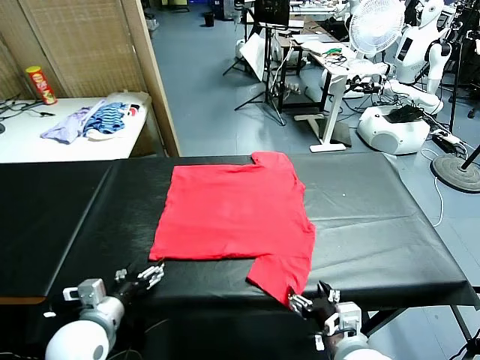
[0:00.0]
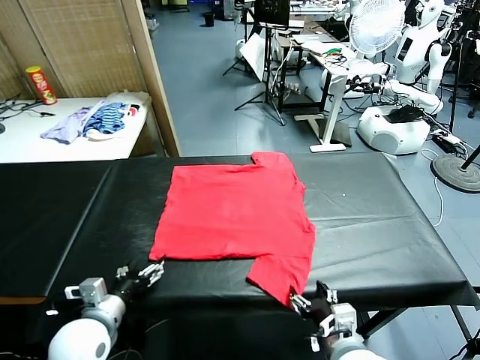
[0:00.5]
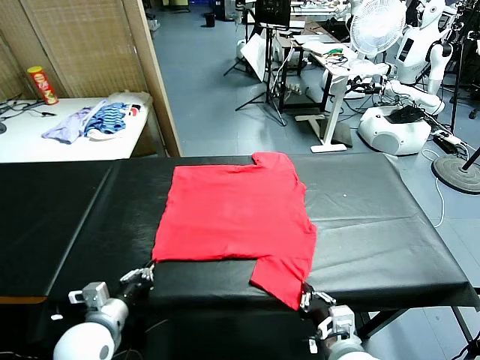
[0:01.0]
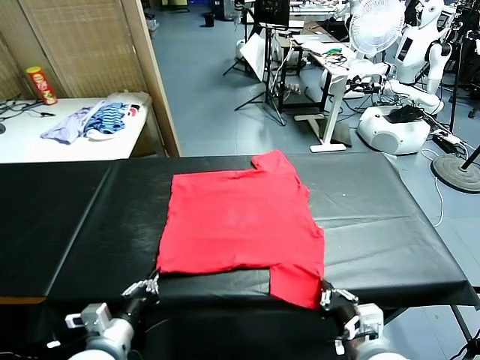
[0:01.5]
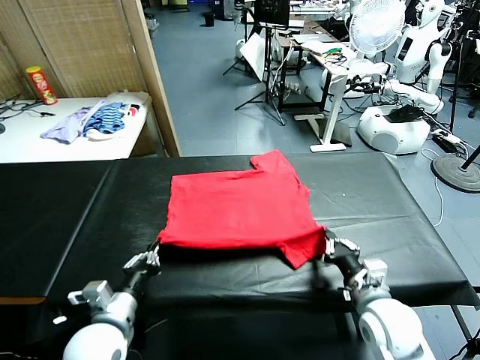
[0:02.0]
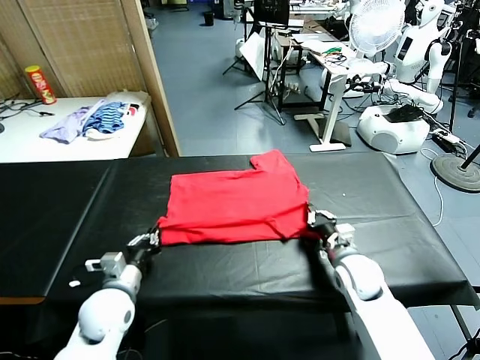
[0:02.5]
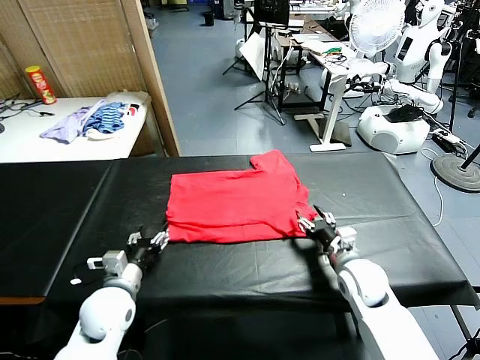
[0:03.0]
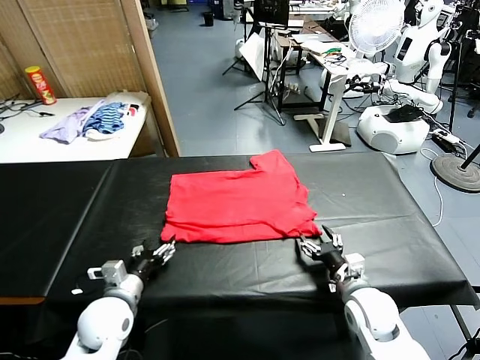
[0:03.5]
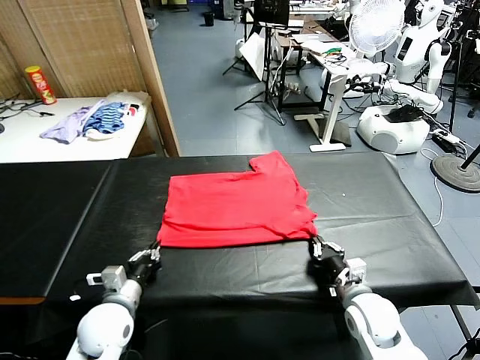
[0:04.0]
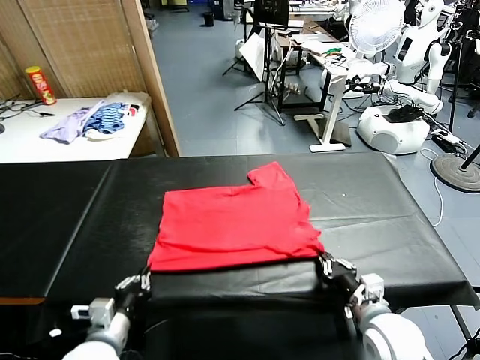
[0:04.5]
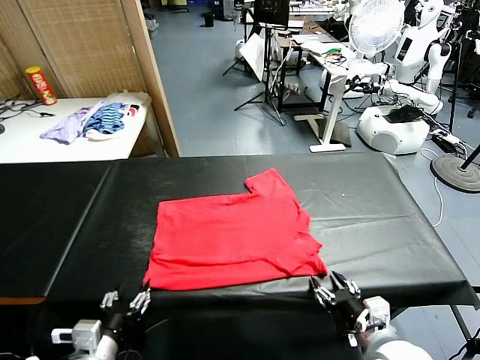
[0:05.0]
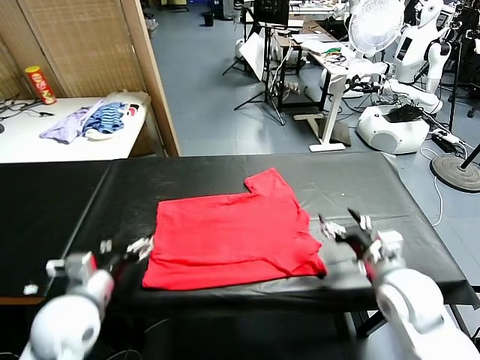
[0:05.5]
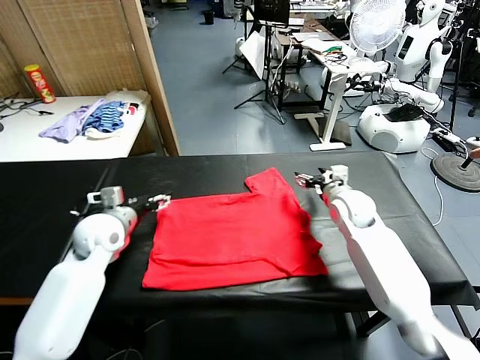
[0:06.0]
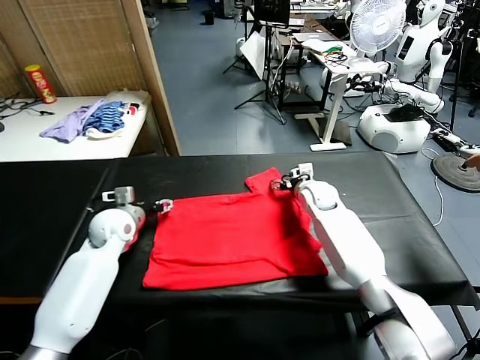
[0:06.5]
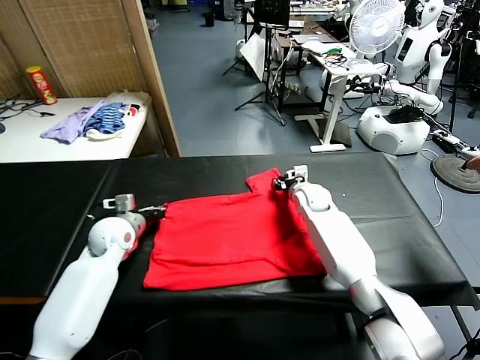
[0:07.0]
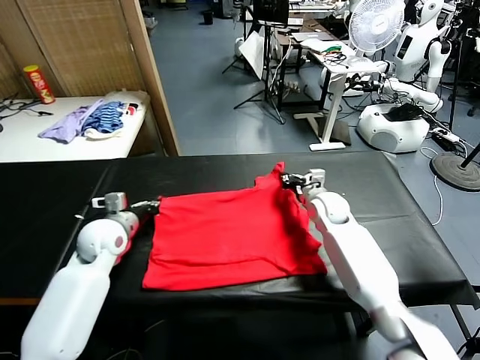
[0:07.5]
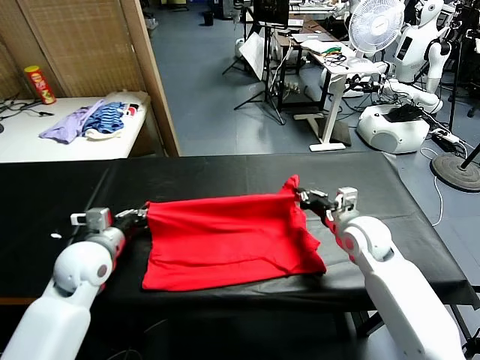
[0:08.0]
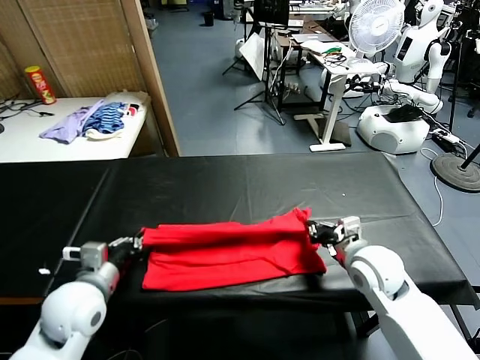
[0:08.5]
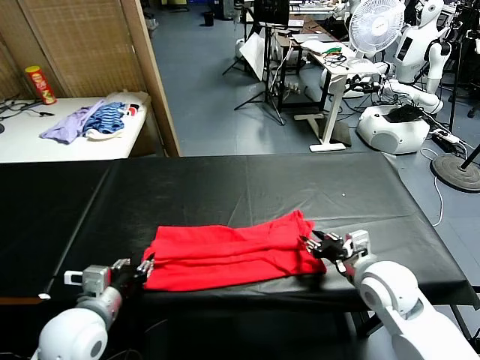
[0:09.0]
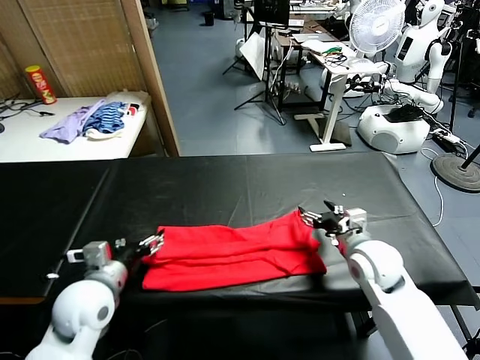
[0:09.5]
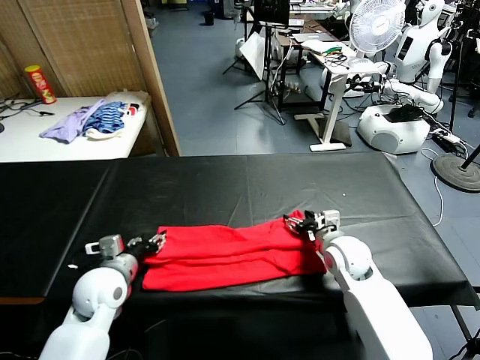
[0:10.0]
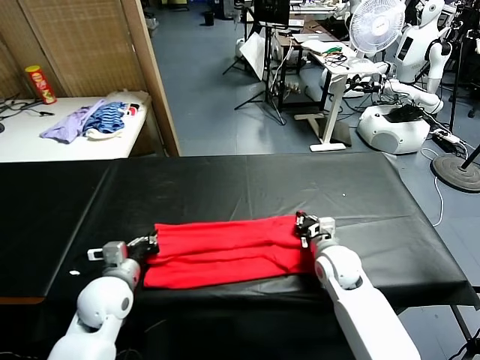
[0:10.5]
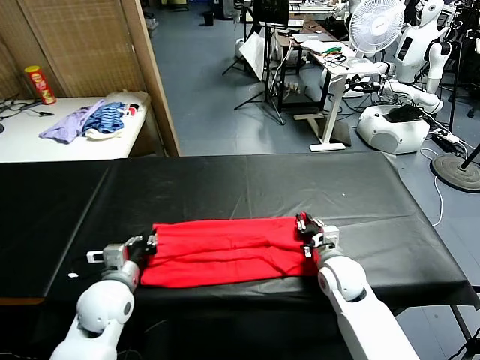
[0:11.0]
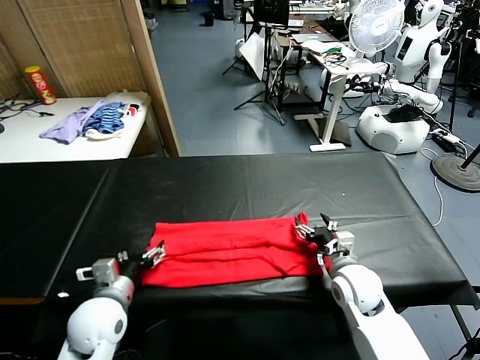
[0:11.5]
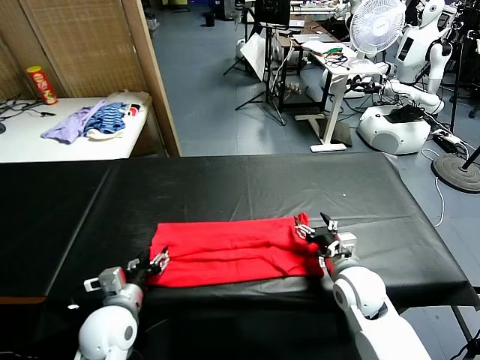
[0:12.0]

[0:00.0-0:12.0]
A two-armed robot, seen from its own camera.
Task of the whole recording: fold and organize the clothes.
Step, 0:00.0 to 0:01.5: use both grippers simultaneously to clamp the lower edge of the clothing fabric.
Step, 0:02.0 to 0:03.0: use both grippers to drag the lower edge of the fabric forward and fold it over the upper edge.
Step, 0:03.5 to 0:05.0: Drag the clothes downward with both gripper.
Step, 0:05.5 to 0:07.0: use both grippers simultaneously to clamp the upper edge of the clothing fabric.
Step, 0:08.0 to 0:09.0: use both grippers to drag the upper edge of the fabric backward and fold it over the lower edge.
0:02.0 to 0:04.0: The right gripper travels backward by approximately 5 cm, and opens, then closes again. Meanwhile the left gripper shifts by approximately 5 cm, and opens and closes again.
0:04.0 to 0:06.0: The right gripper moves forward, about 30 cm, and opens. The left gripper travels forward and upward by approximately 20 cm, and opens its fingers.
0:06.0 to 0:08.0: The right gripper shifts some 15 cm backward, and closes. The left gripper is displaced backward by about 10 cm, and closes.
0:08.0 to 0:10.0: Both grippers move downward, roughly 5 cm. The right gripper moves some 5 cm backward and comes back, and opens up; the left gripper reaches some 10 cm backward, then returns, and opens.
0:10.0 to 0:12.0: Both grippers move backward, roughly 5 cm. The right gripper closes, then reopens. The left gripper closes, then opens again.

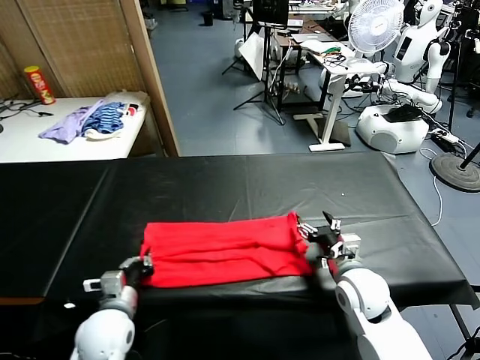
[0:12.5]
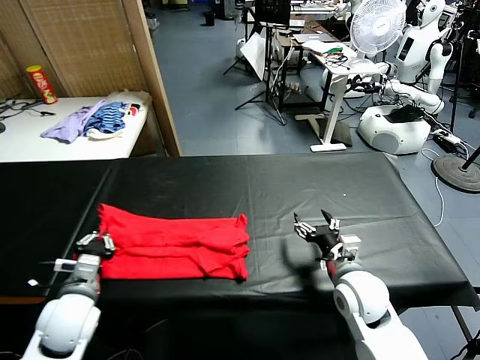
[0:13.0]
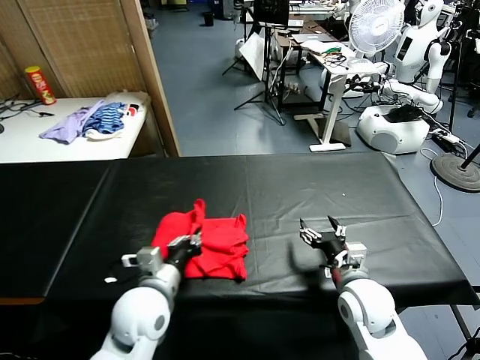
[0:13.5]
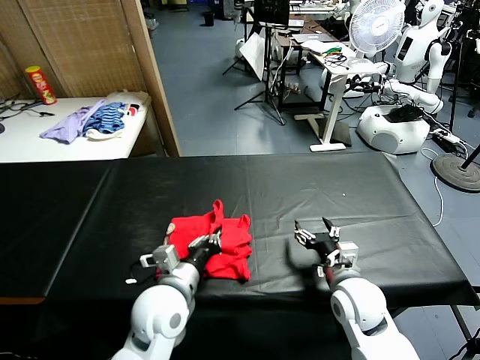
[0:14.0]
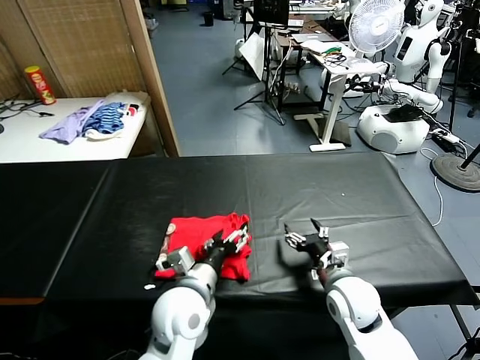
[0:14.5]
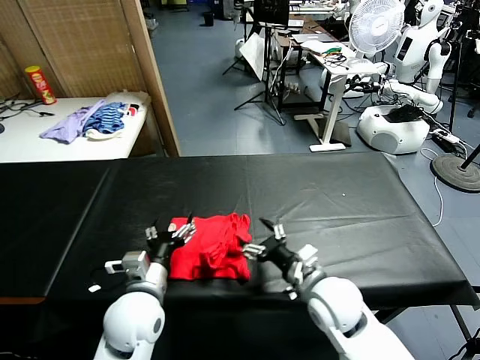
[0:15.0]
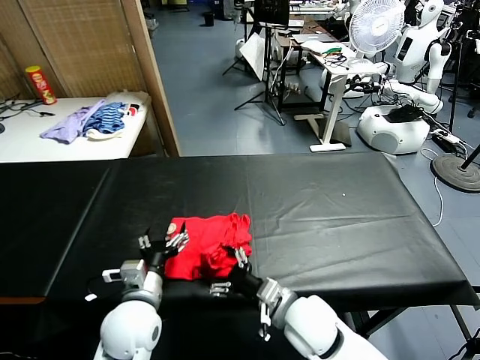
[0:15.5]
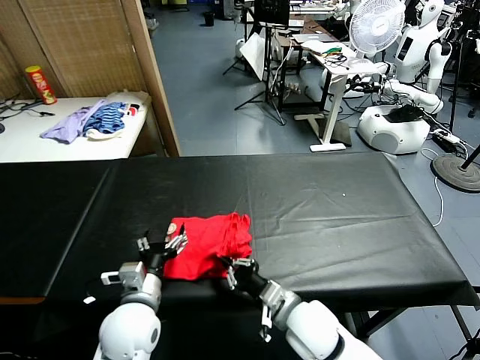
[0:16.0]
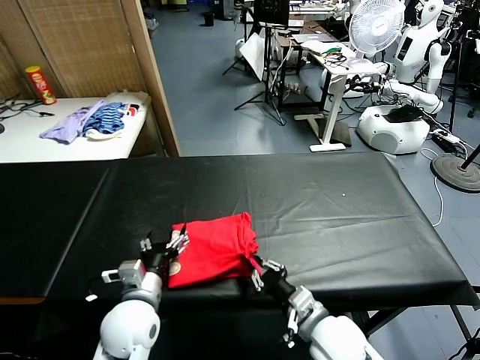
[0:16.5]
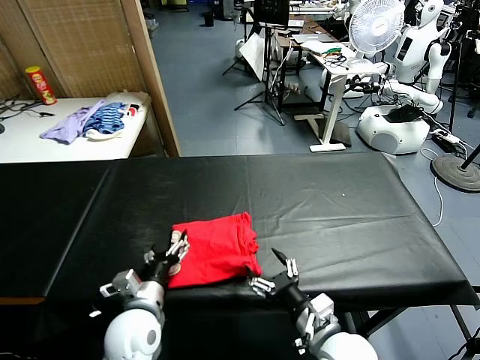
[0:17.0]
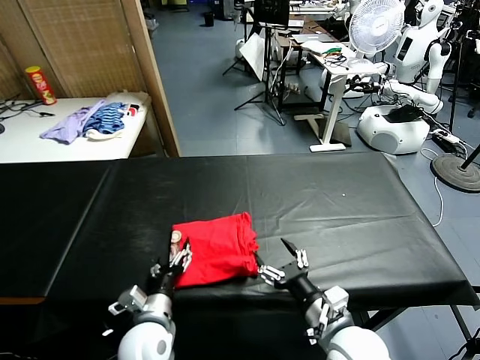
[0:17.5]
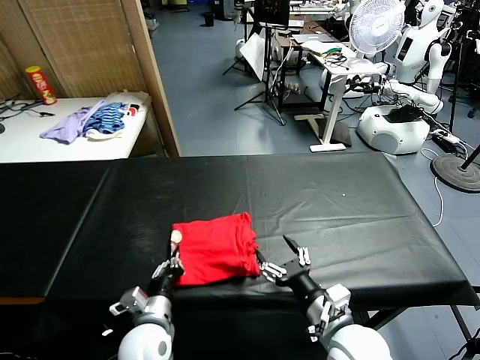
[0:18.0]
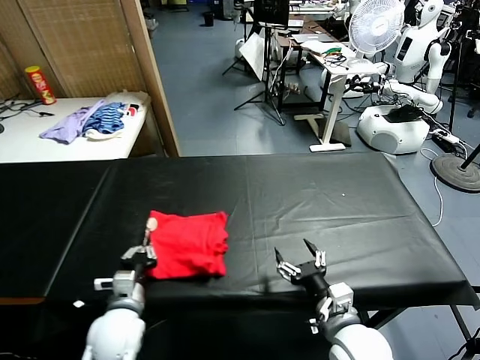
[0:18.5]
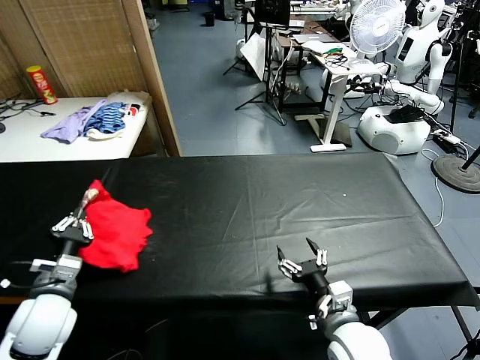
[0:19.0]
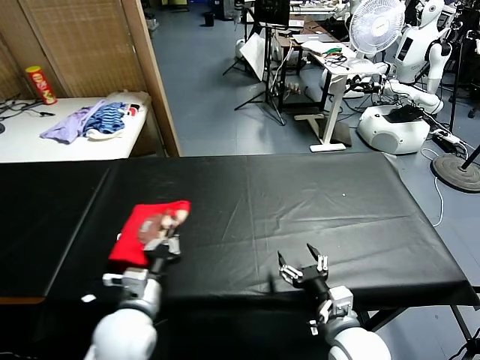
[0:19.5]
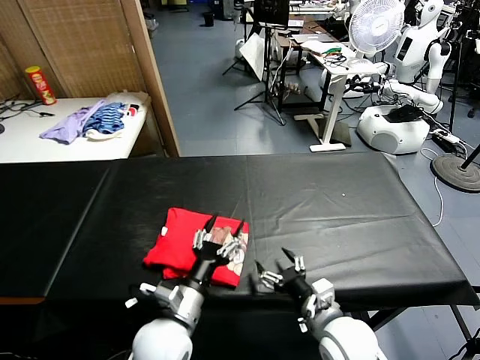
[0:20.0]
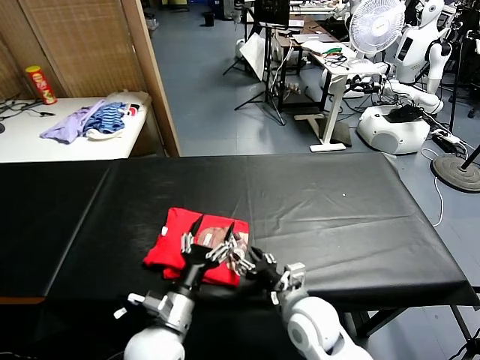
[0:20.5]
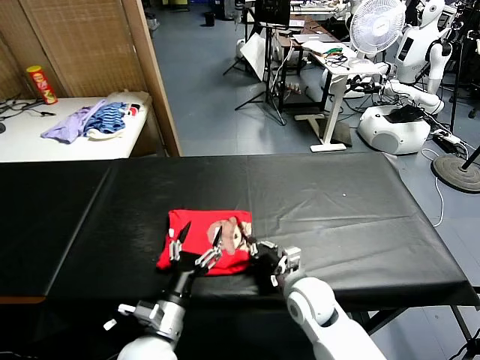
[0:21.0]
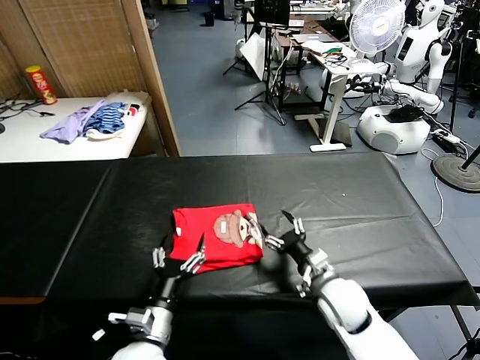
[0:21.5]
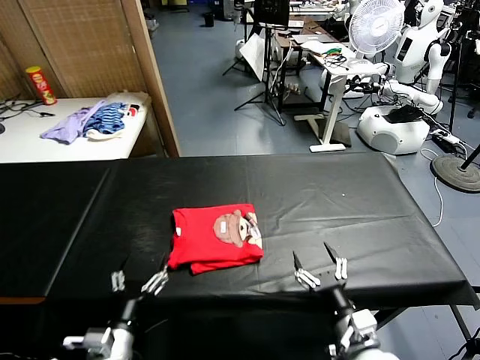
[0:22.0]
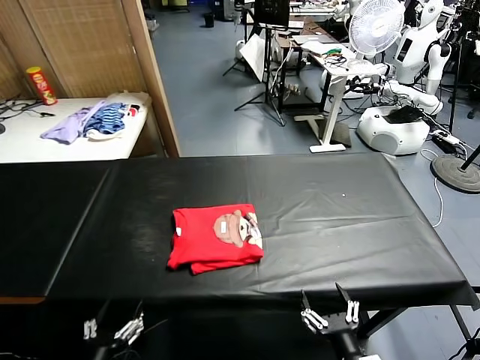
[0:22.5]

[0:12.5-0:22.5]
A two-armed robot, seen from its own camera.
Task of the whole recording: fold and organize the clothes.
Step, 0:13.0 to 0:14.5: use the left gripper to drag the left edge of the fabric to the left and folds it over the right edge.
Step, 0:15.0 to 0:20.0: Flip the folded clothes over with left gripper.
Step, 0:20.5 to 0:21.5: Drag the clothes to the center of the table.
0:12.5 to 0:14.5: The left gripper goes about 15 cm to the right and upward, and opens its fingers.
0:14.5 to 0:16.5: The right gripper shifts approximately 10 cm backward, and closes up, while the left gripper moves to the left, about 10 cm.
0:16.5 to 0:18.5: The right gripper opens up. The left gripper moves approximately 5 cm, and closes up.
0:18.5 to 0:20.5: The right gripper travels to the left and forward by some 10 cm. The left gripper is displaced to the right by some 10 cm, and opens up.
0:20.5 to 0:22.5: The left gripper goes approximately 20 cm backward and to the left. Meanwhile the right gripper goes some 20 cm backward and to the right, and closes, then reopens.

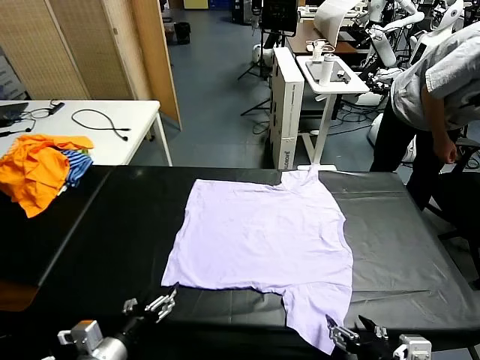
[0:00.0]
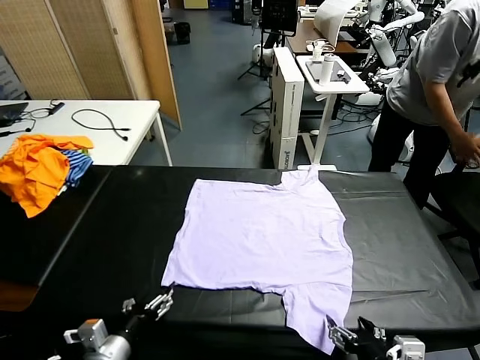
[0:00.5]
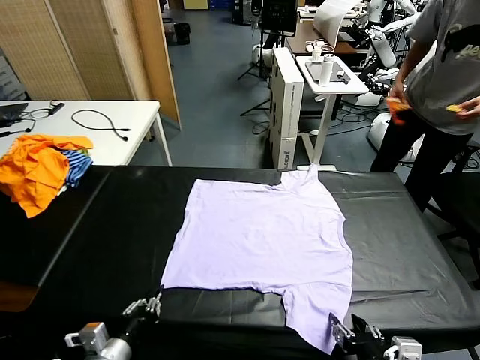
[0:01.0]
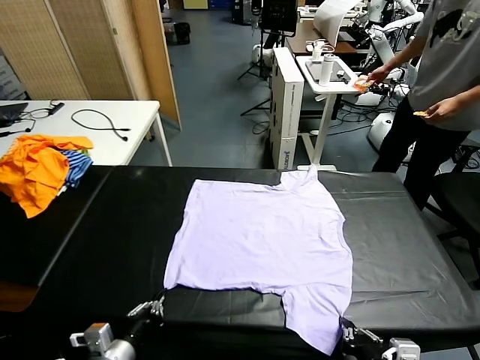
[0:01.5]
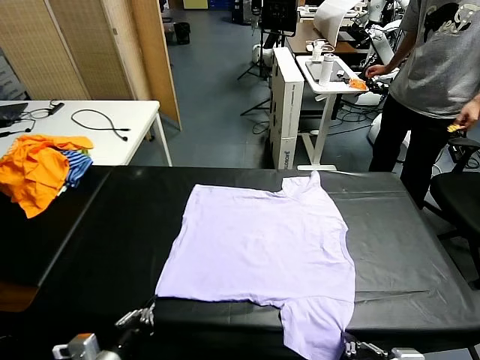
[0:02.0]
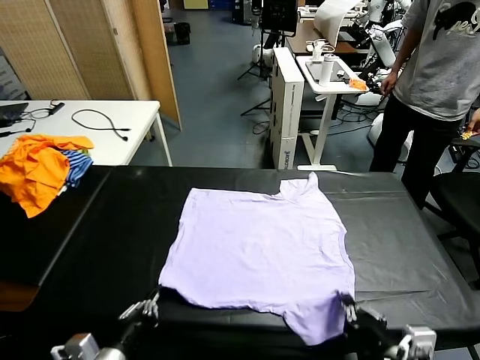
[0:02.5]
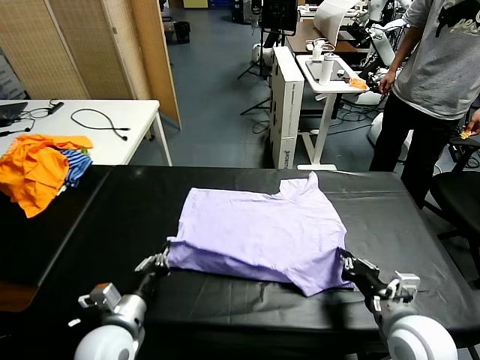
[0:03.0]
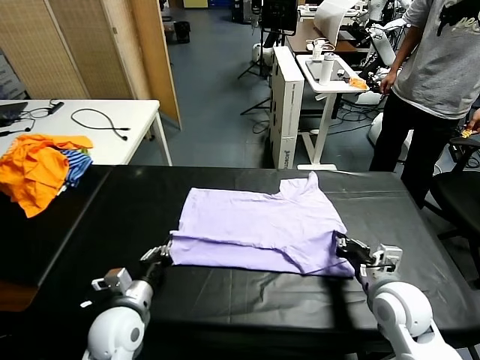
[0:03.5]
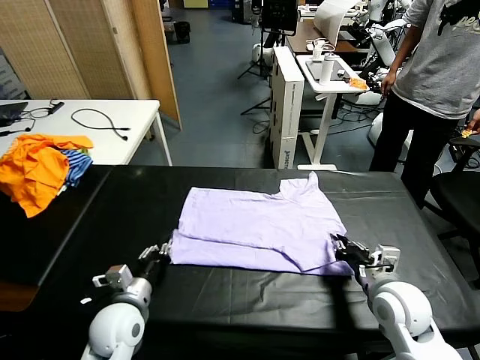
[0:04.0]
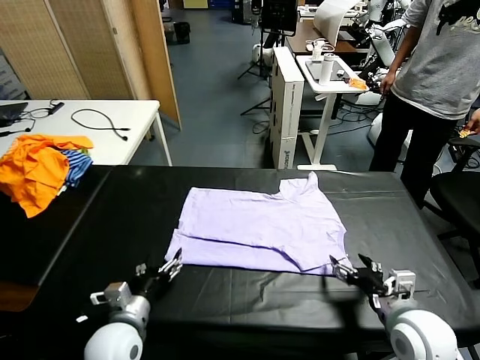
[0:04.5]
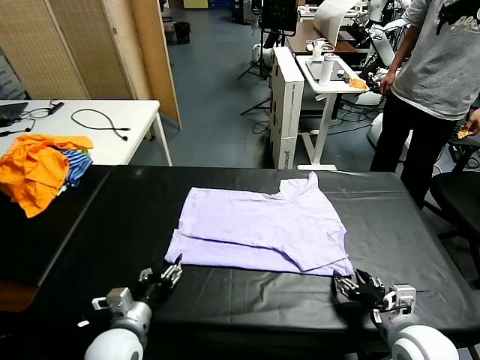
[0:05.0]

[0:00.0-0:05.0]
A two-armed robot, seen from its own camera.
Task of the whole recording: fold and organize the clothes.
Step, 0:00.0 to 0:02.0: use both grippers simultaneously to clamp the lower edge of the clothing fabric.
Step, 0:02.5 to 0:04.0: use both grippers to drag the lower edge of the fabric forward and fold it over the upper edge.
0:02.5 to 0:05.0: The right gripper moves downward, some 5 cm, moves some 10 cm forward and comes back, and opens, then closes once more. Meanwhile the left gripper goes approximately 10 cm forward and downward, and opens its fingers.
